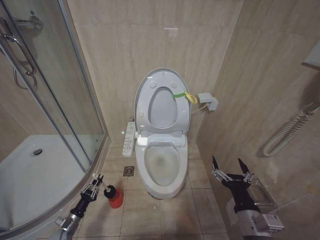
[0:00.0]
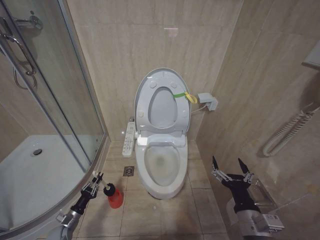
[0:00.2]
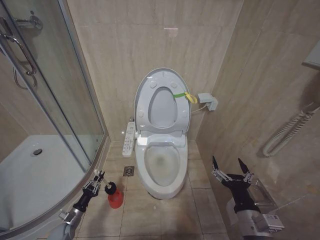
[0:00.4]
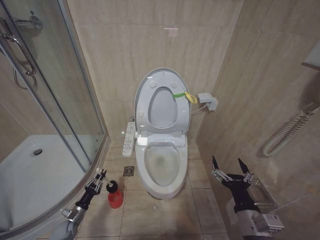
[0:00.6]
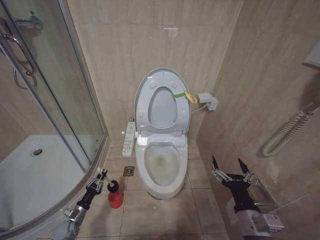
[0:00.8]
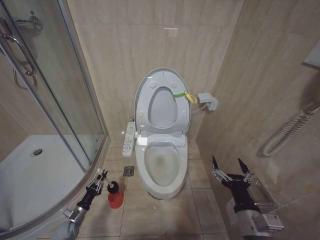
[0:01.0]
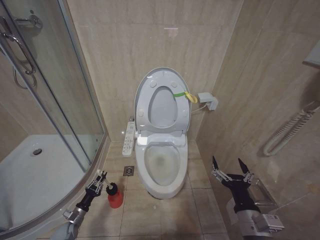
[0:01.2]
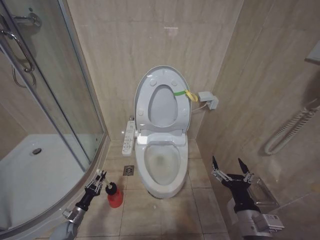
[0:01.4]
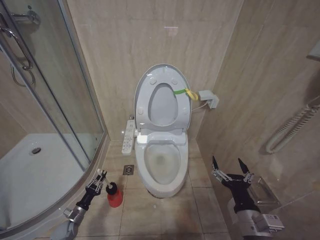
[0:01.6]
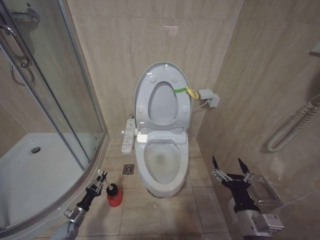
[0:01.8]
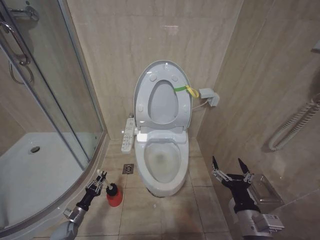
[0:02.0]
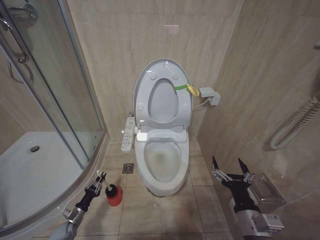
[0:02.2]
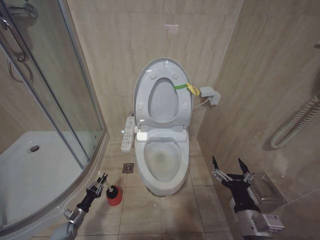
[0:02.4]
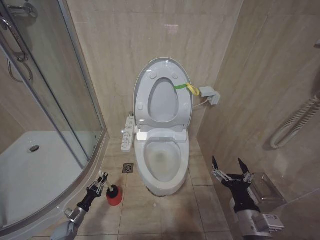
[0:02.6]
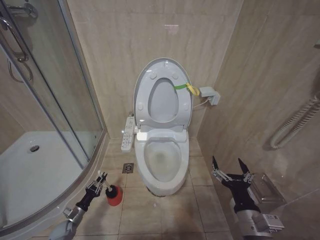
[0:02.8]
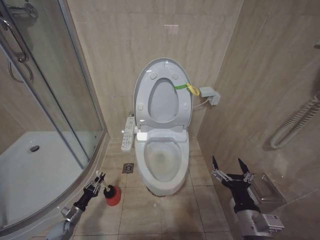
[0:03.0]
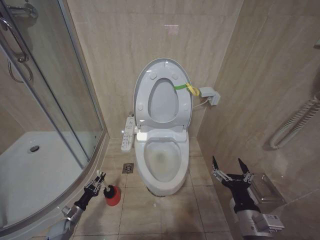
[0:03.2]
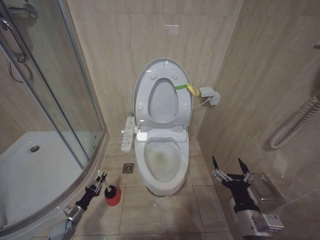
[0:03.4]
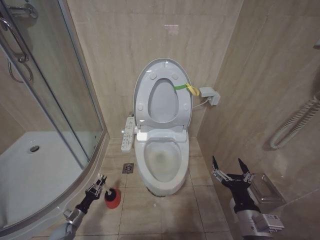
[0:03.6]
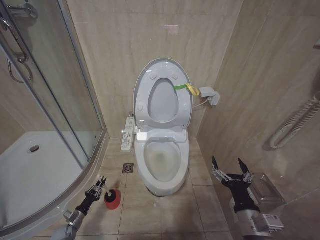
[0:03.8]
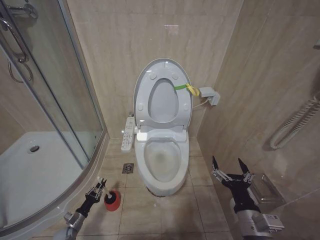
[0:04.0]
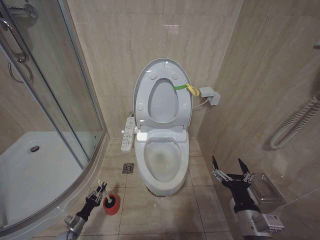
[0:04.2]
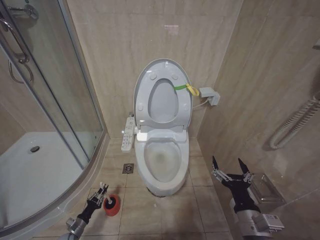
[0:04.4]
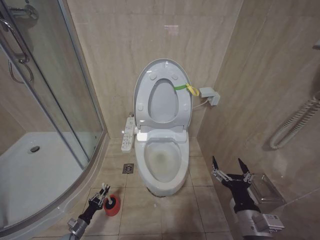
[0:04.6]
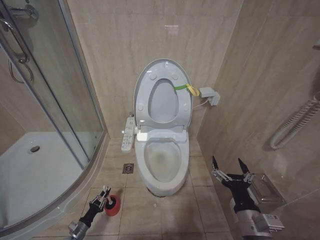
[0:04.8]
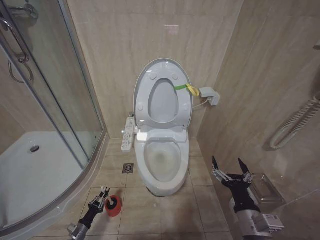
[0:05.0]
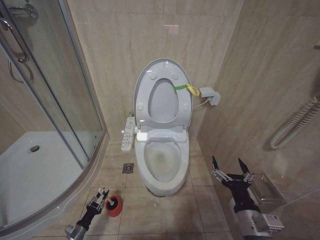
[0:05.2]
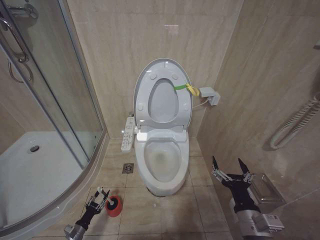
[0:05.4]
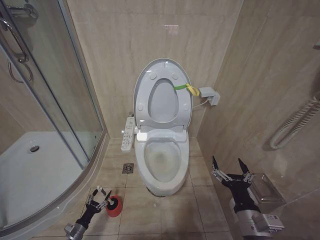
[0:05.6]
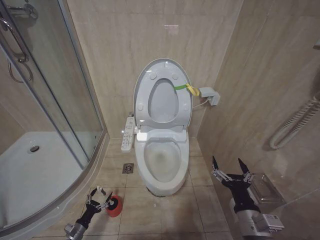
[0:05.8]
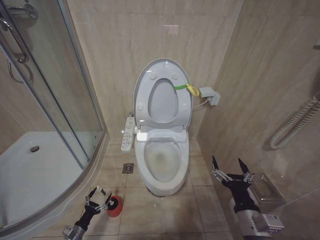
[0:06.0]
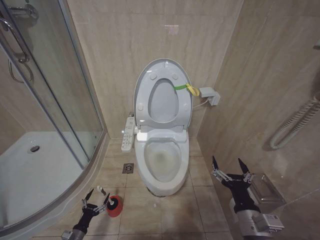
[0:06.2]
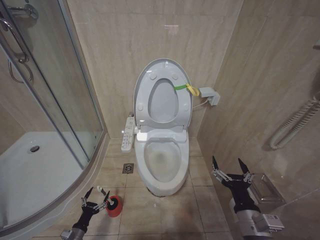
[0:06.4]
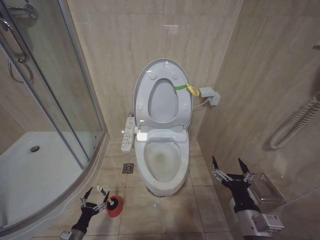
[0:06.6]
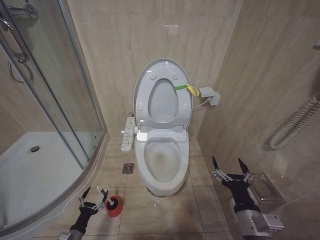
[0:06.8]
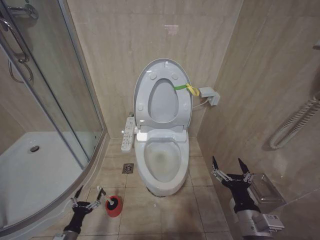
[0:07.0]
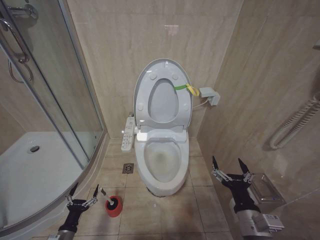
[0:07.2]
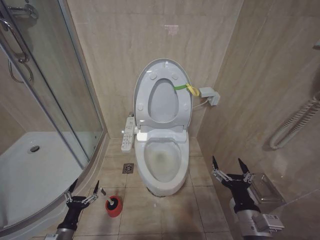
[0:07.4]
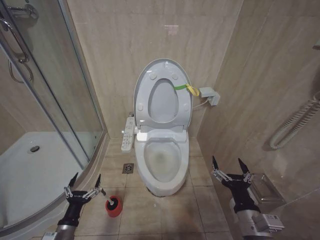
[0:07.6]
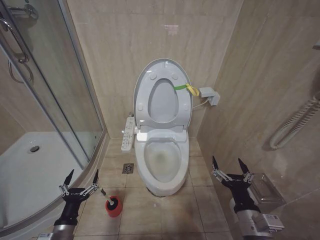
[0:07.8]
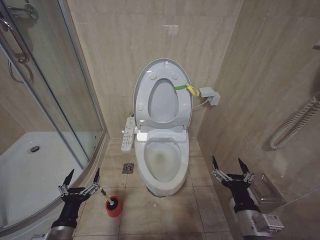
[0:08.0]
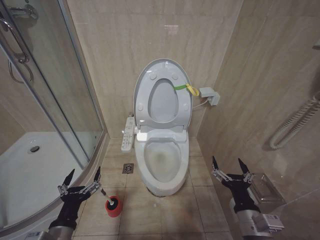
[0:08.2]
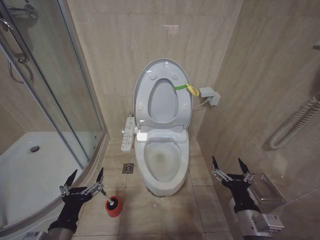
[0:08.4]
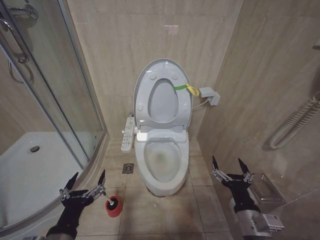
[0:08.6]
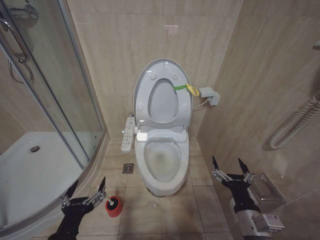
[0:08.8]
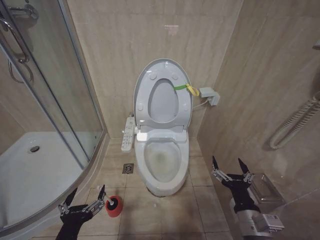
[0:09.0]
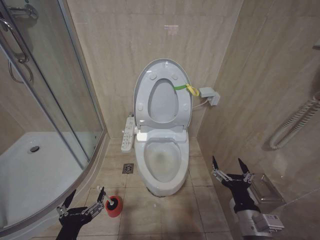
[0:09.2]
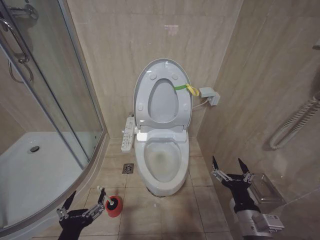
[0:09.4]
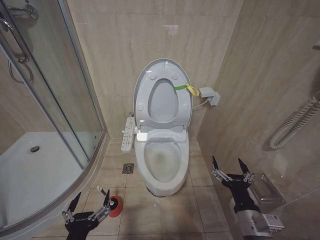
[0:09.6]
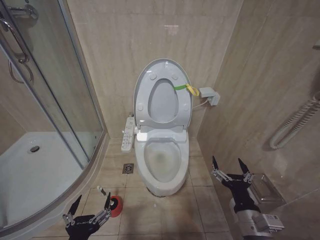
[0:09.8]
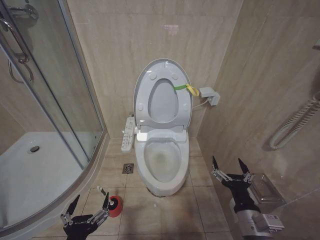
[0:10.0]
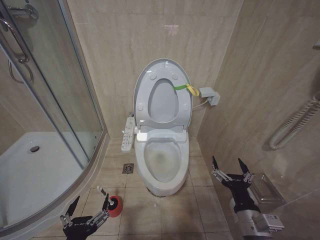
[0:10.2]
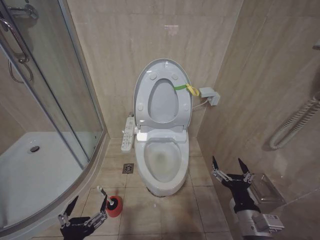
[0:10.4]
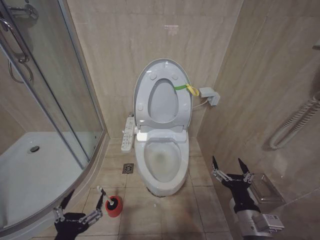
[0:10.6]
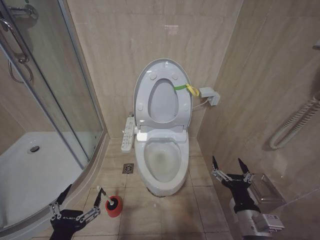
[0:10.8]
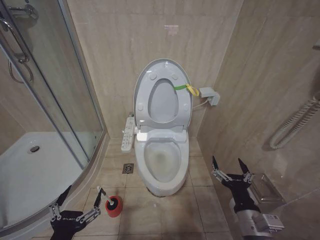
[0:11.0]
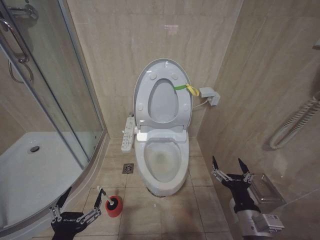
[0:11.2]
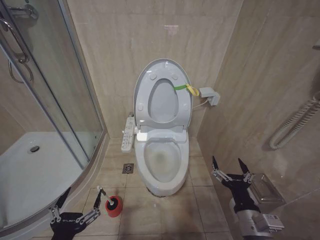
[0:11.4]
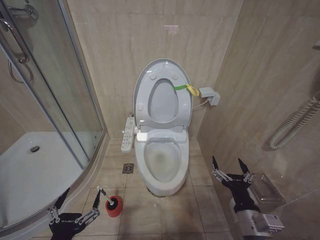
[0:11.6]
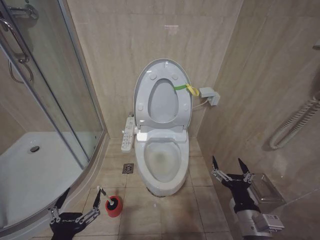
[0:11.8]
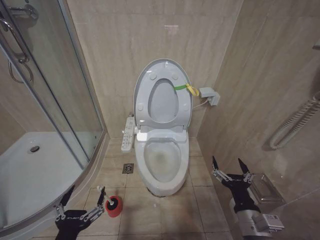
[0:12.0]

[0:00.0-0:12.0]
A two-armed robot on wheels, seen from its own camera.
Task of the whole recording: Open the toilet lid, clean the toilet bowl with a toilet brush, close the toilet lid, and flush.
0:00.0 to 0:03.0: The grippers move only a little.
0:03.0 to 0:04.4: The left gripper changes place by some 5 cm.
0:04.4 to 0:06.0: The left gripper opens its fingers.
0:06.0 to 0:07.6: The left gripper shifts roughly 20 cm upward.
0:07.6 to 0:09.0: The left gripper moves upward, backward and to the right, about 20 cm.
0:09.0 to 0:12.0: There are only small adjustments of the grippers.

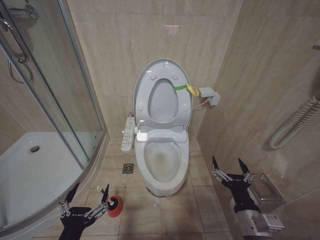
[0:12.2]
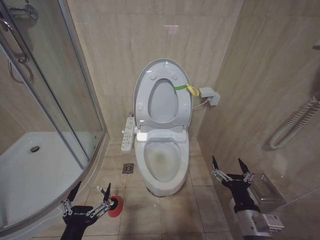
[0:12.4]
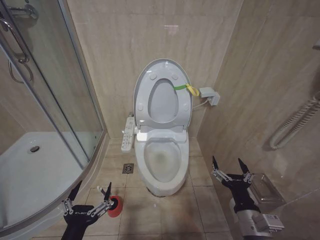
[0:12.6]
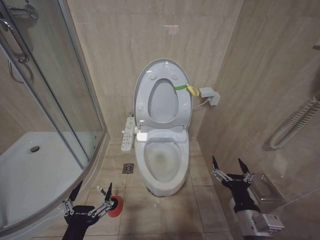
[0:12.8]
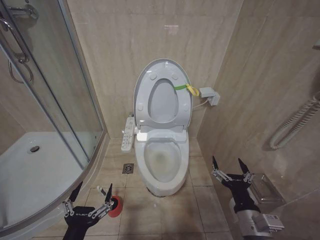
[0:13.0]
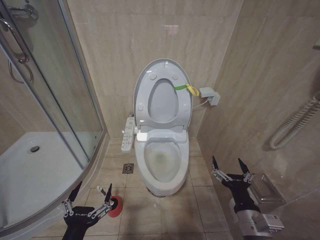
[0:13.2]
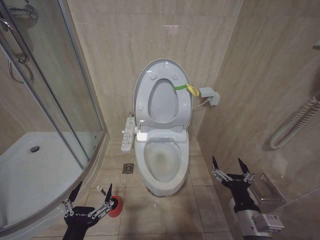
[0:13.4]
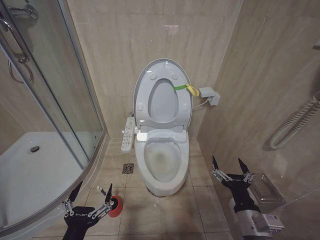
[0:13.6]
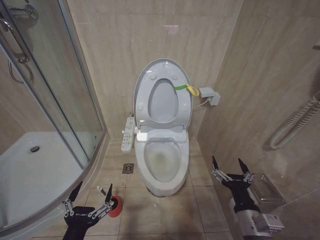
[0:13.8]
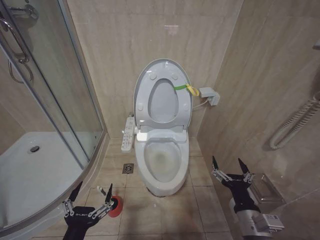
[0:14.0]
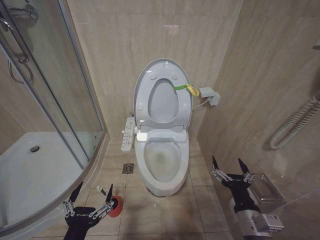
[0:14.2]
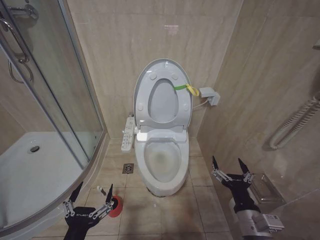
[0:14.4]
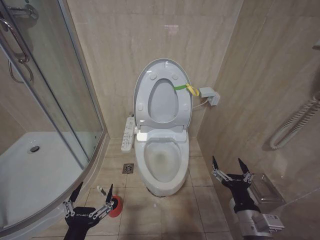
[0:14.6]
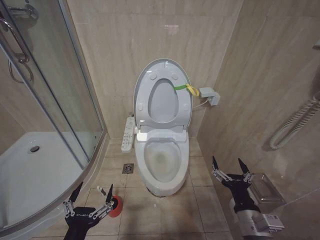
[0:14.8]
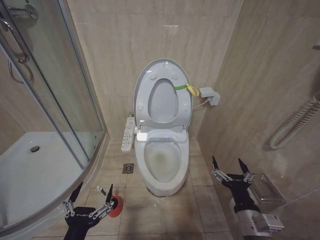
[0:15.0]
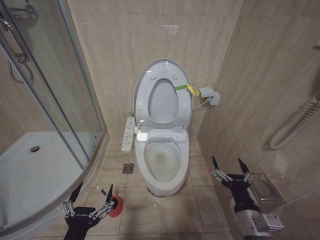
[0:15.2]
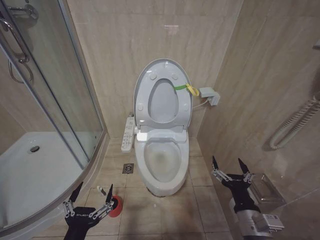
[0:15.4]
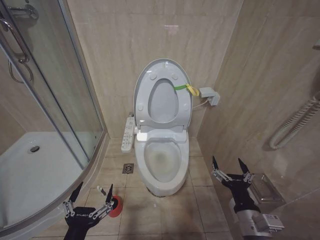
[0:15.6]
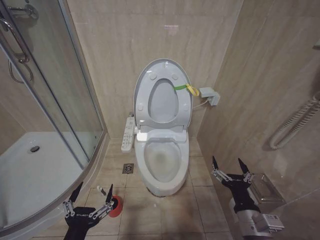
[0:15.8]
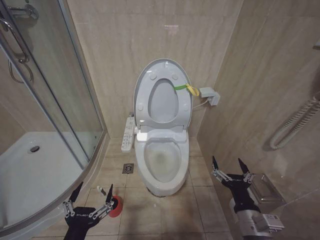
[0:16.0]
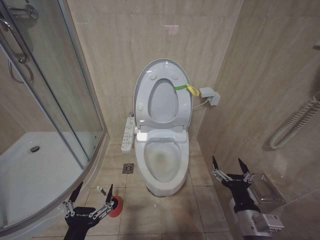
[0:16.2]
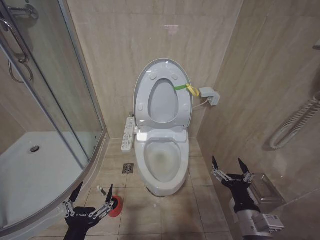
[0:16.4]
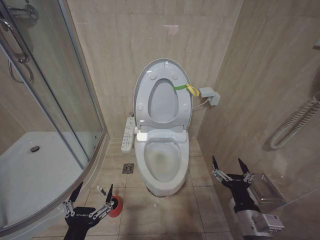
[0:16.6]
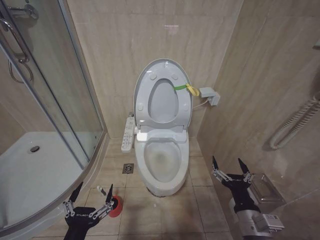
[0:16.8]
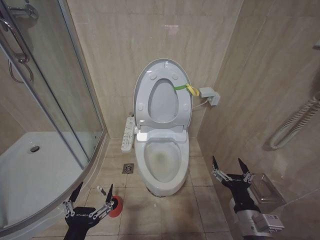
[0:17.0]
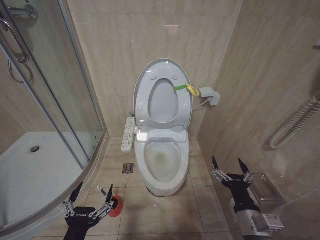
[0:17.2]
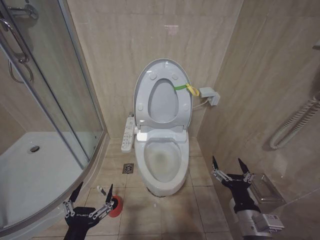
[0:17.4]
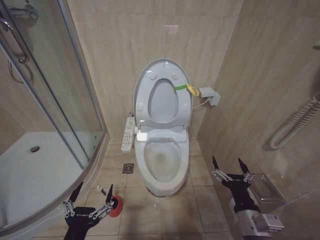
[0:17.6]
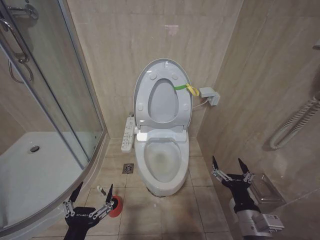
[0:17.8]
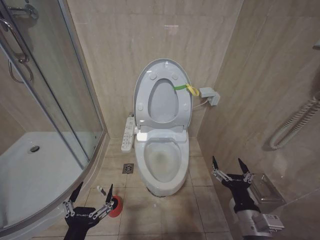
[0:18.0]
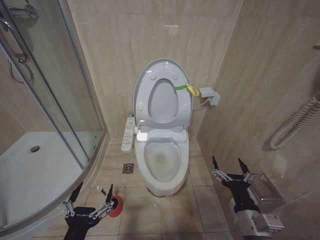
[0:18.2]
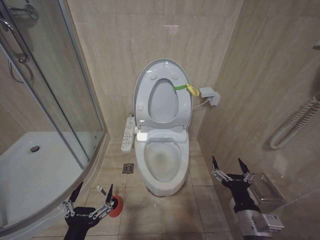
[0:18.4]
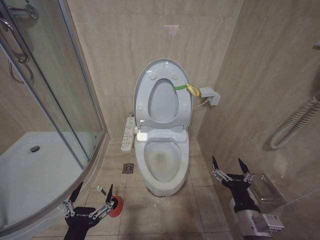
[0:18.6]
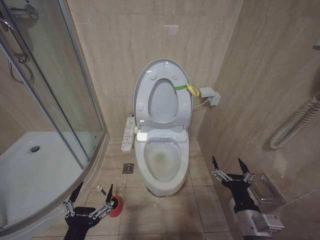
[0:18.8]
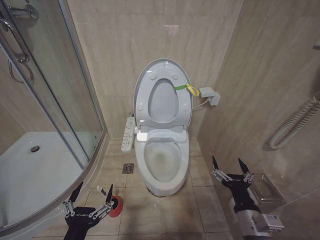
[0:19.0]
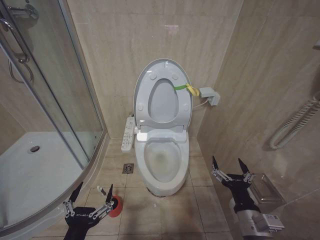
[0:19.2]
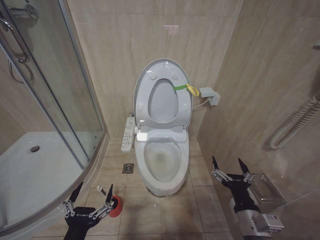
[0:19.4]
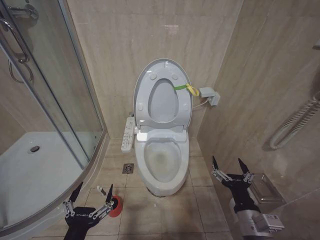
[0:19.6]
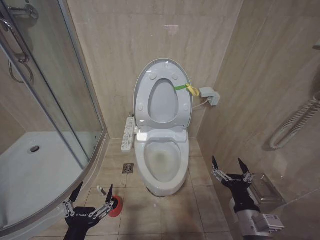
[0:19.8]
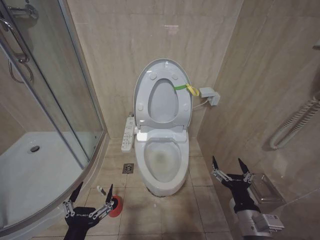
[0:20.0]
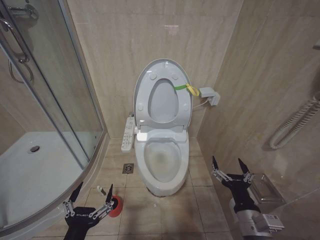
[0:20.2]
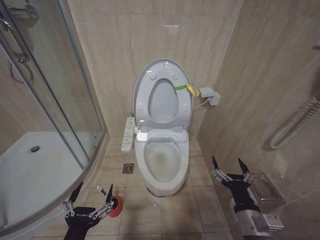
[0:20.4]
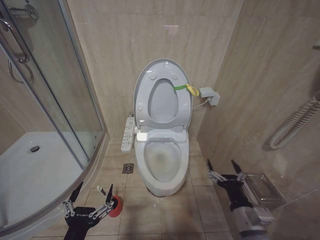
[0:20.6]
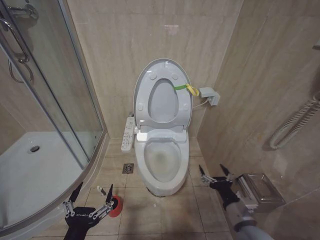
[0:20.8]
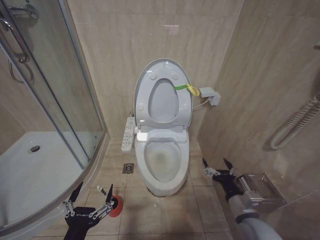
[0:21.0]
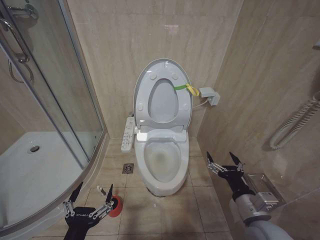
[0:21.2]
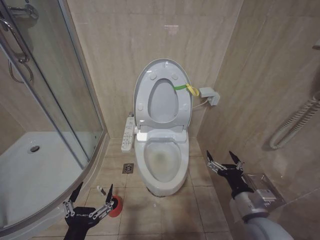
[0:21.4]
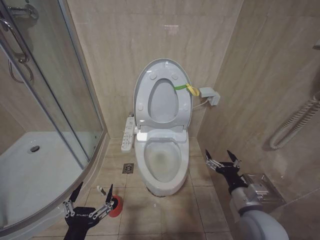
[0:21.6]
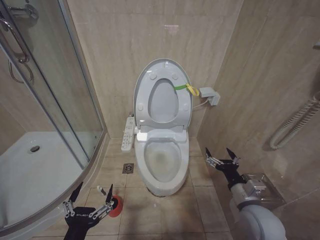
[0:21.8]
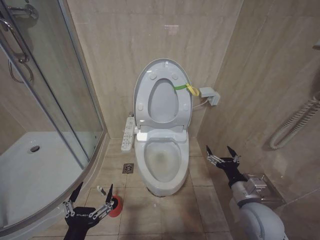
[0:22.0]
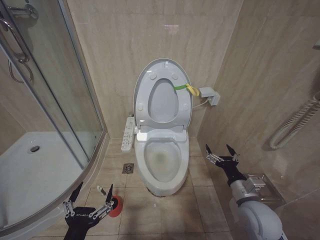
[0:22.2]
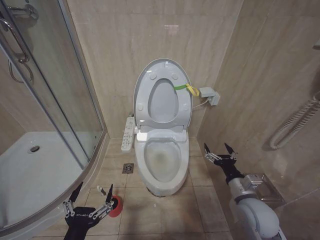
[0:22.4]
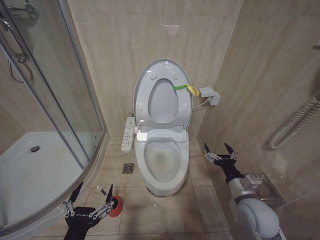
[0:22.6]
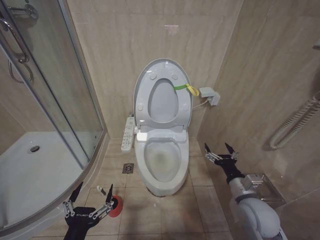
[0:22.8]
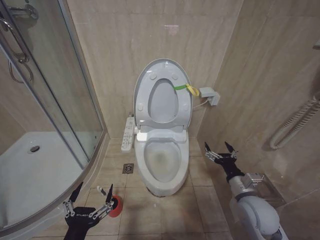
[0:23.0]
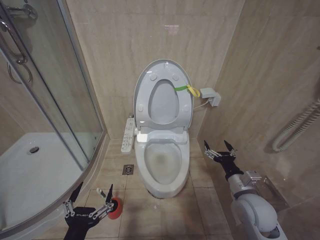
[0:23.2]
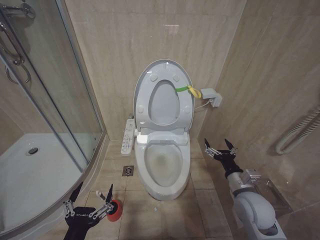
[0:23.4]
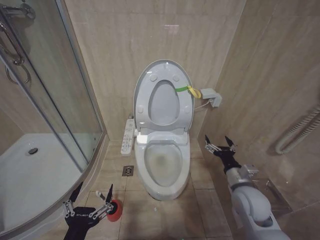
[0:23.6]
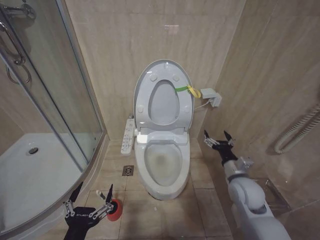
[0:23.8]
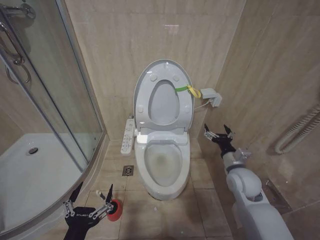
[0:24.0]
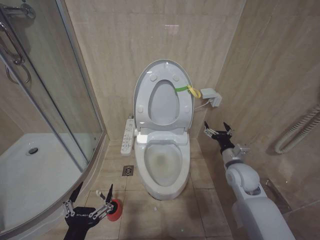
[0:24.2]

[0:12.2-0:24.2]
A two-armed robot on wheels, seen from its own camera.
Task of the whole recording: Open the toilet lid, clean the toilet bowl with a toilet brush, close the toilet lid, and flush.
0:12.2 to 0:19.8: The two grippers keep their place.
0:19.8 to 0:21.2: The grippers move only a little.
0:21.2 to 0:22.6: The right gripper heads forward, covering some 5 cm.
0:22.6 to 0:24.2: The right gripper goes approximately 10 cm forward.
